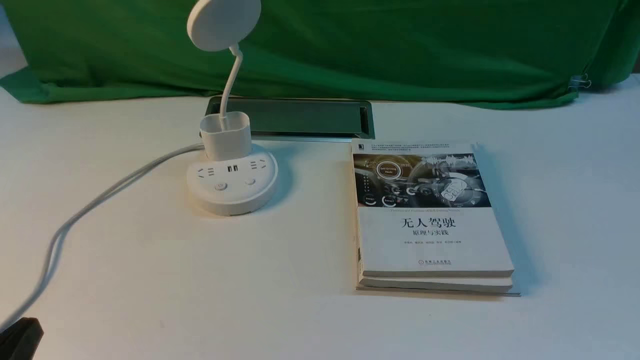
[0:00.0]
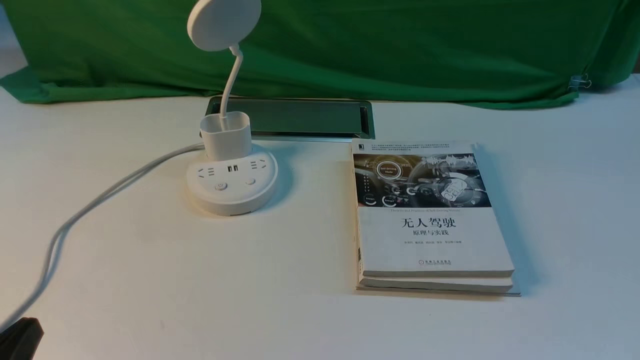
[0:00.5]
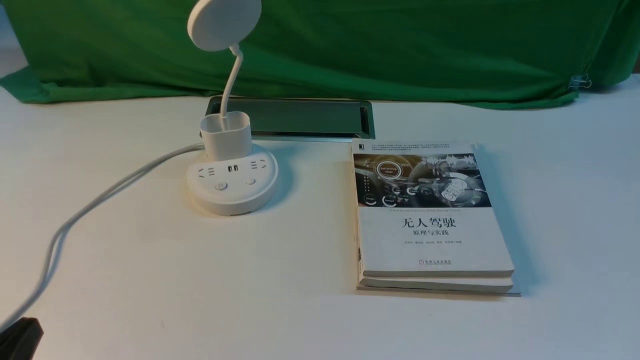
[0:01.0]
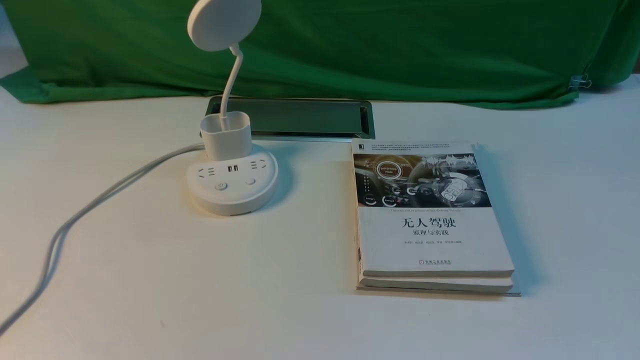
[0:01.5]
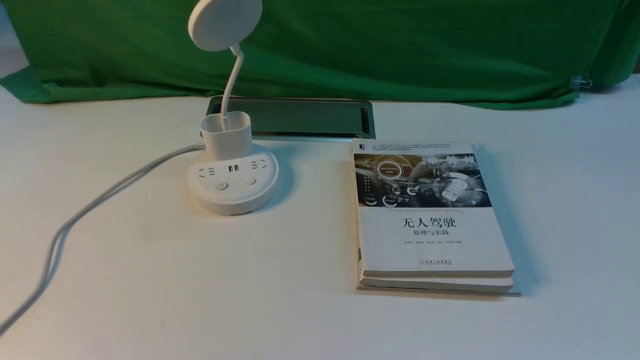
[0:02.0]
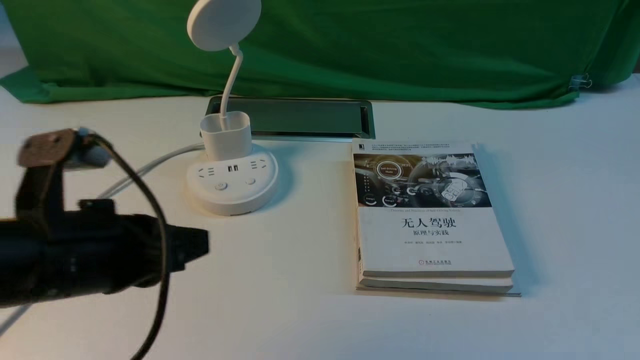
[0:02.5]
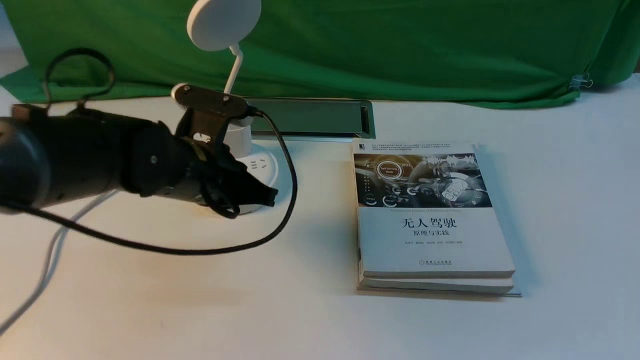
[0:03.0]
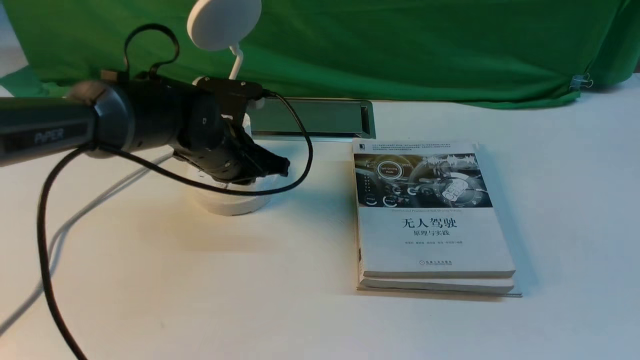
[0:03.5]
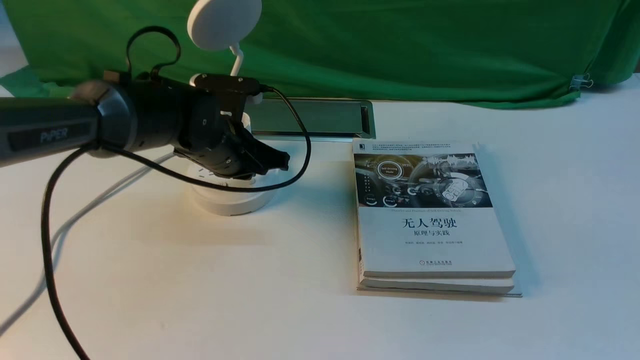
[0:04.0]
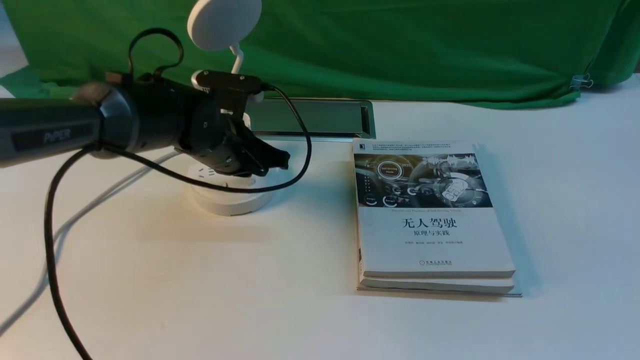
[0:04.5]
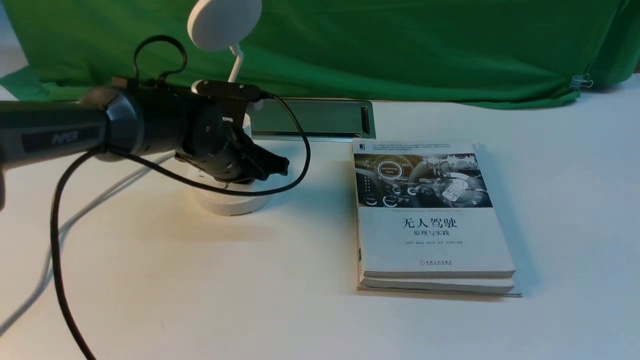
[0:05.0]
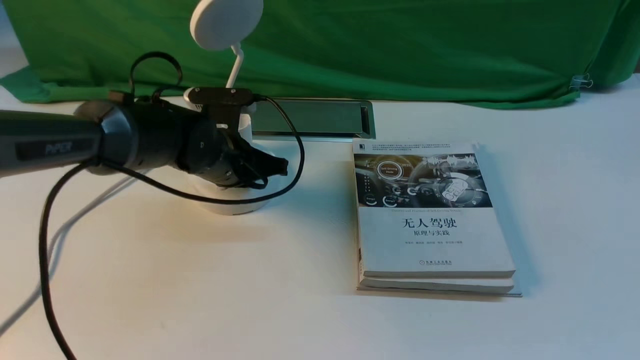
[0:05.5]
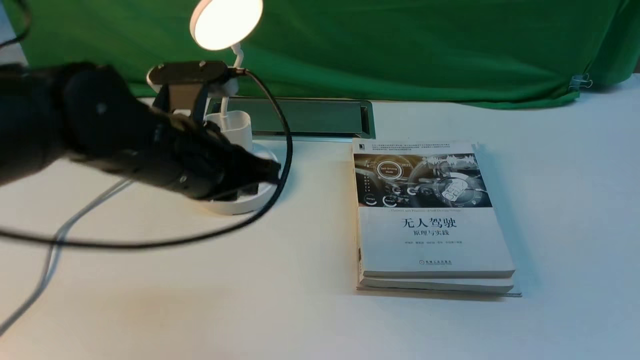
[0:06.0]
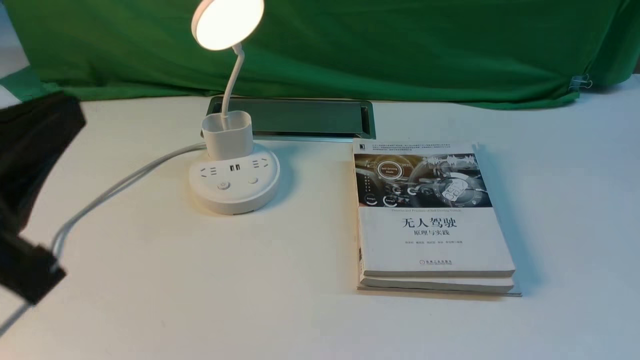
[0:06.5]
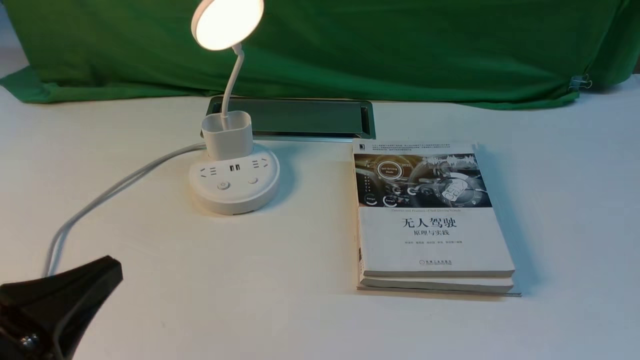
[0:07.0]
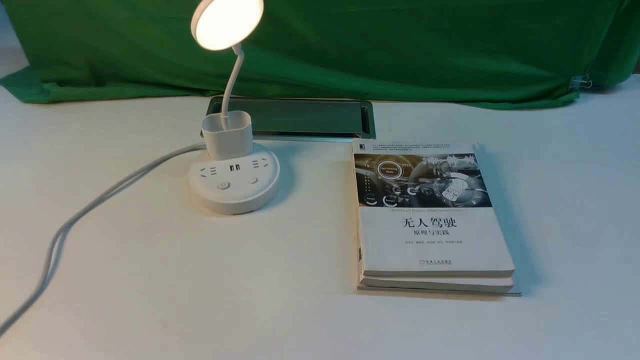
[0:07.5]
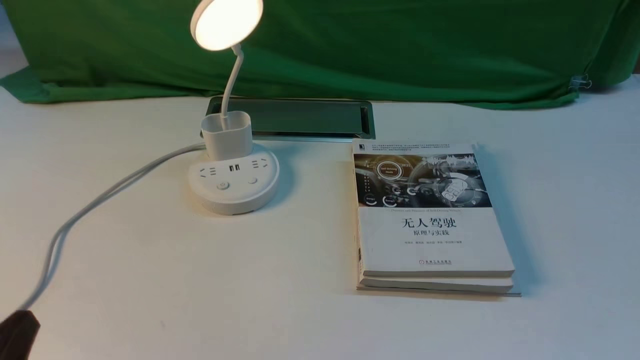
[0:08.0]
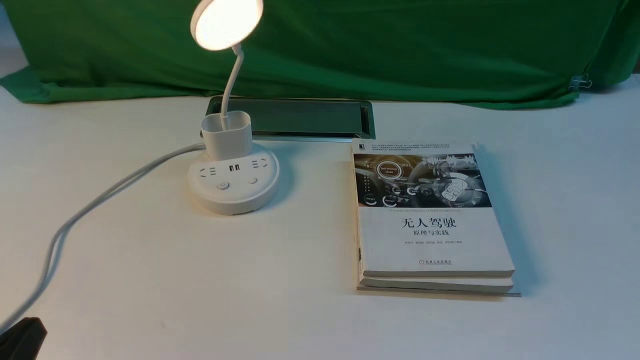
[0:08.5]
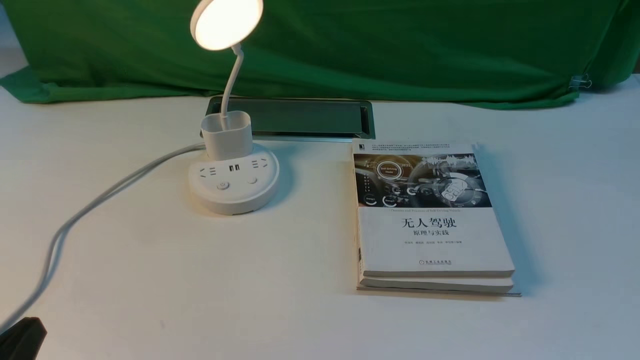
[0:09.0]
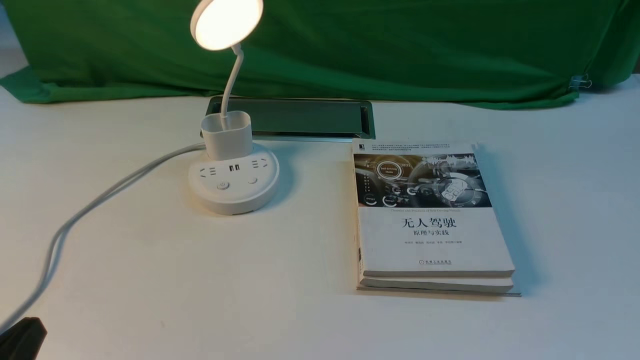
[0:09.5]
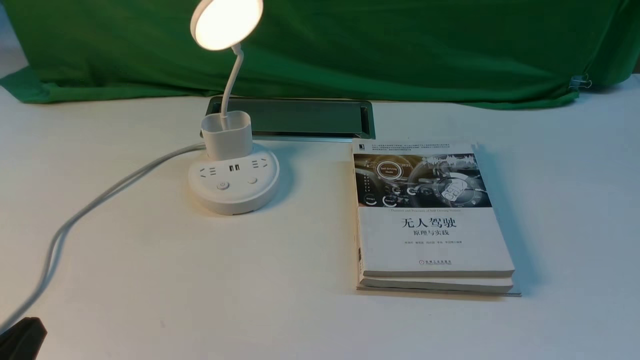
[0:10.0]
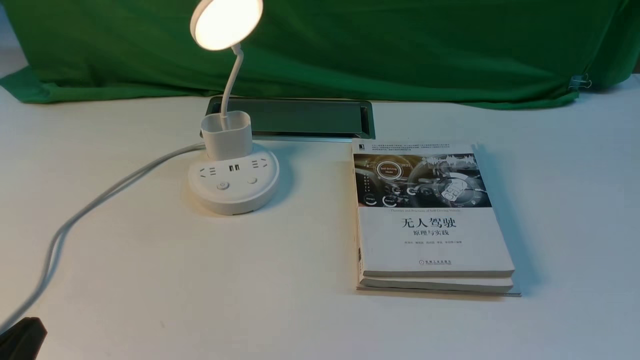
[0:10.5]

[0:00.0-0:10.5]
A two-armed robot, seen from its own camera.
Step, 0:00.0 to 0:06.0: use the left arm to press the button switch on the lamp holder.
0:00.0 to 0:02.0: The left gripper moves upward, approximately 15 cm.
0:02.0 to 0:04.0: The left gripper goes approximately 40 cm forward, downward and to the right.
0:04.0 to 0:06.5: The left gripper shifts roughly 35 cm backward and upward.
0:06.5 to 0:08.5: The left gripper is displaced downward by roughly 15 cm.
0:08.5 to 0:10.5: Neither gripper changes place.

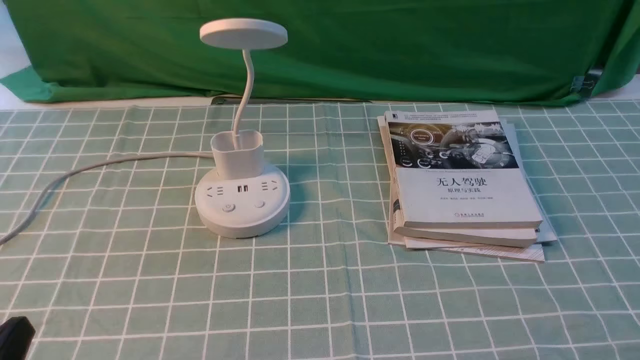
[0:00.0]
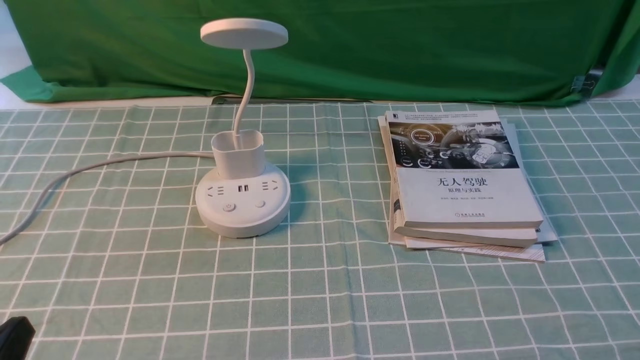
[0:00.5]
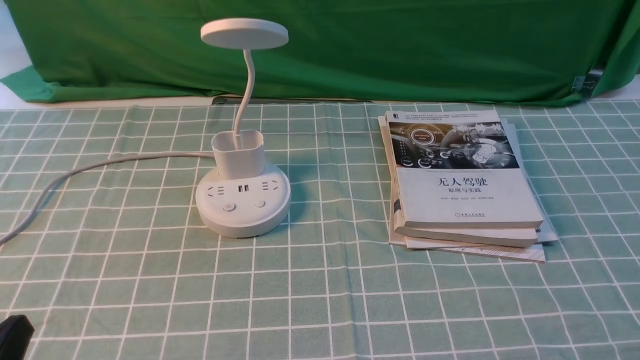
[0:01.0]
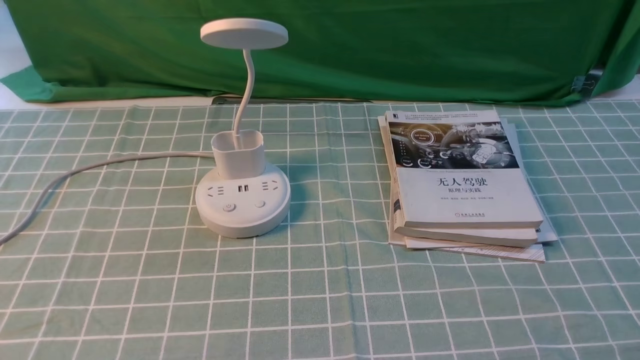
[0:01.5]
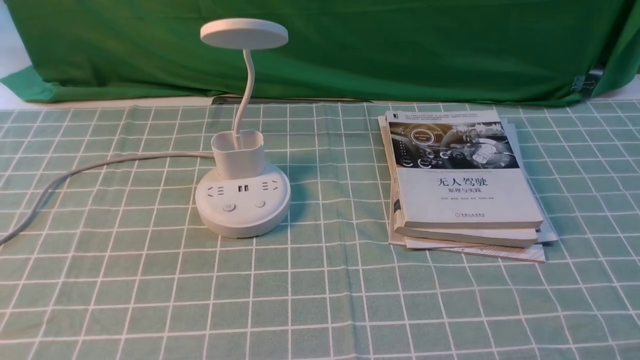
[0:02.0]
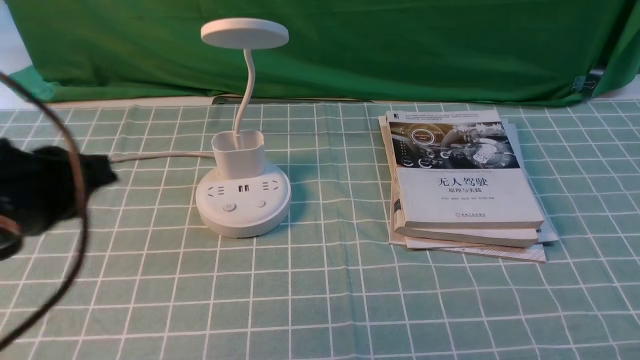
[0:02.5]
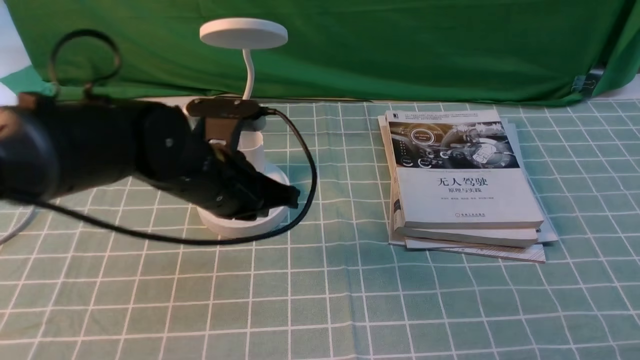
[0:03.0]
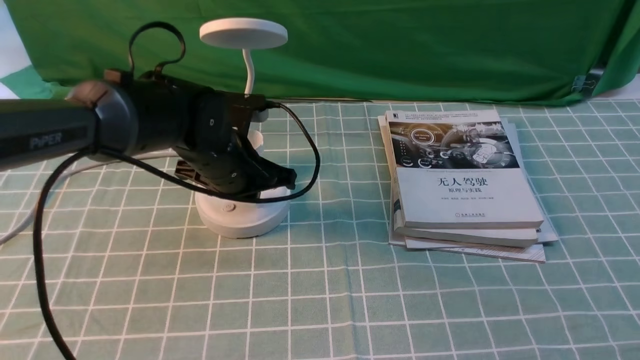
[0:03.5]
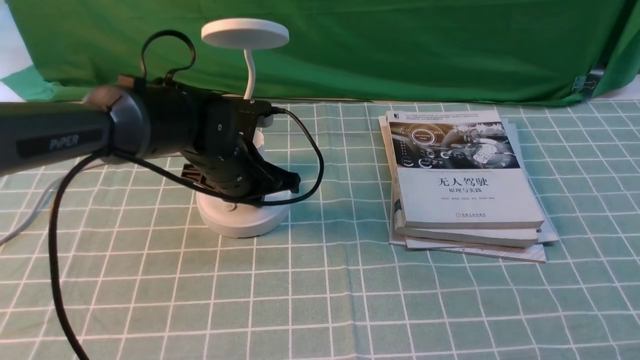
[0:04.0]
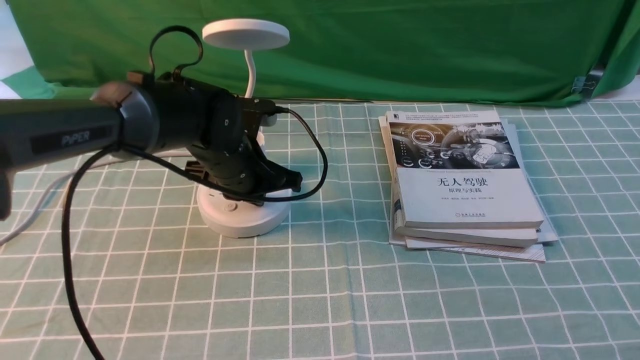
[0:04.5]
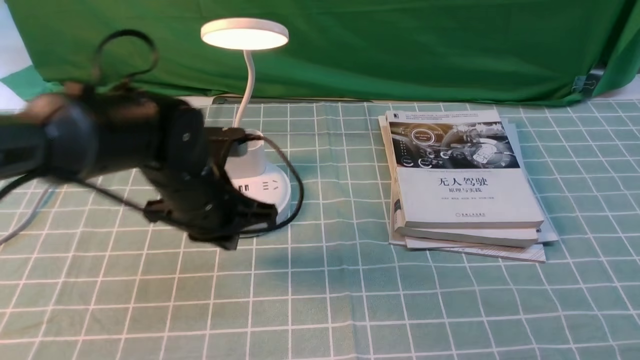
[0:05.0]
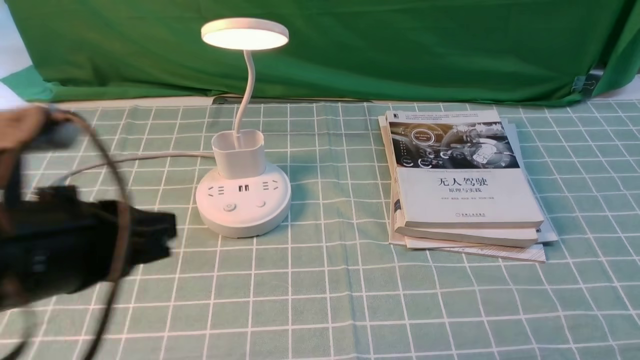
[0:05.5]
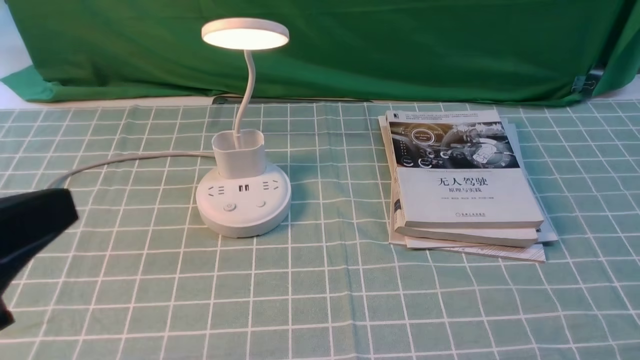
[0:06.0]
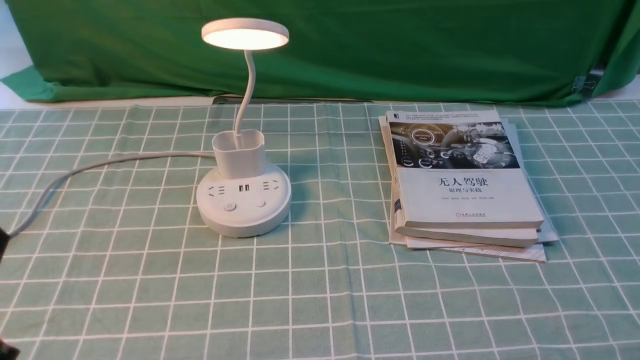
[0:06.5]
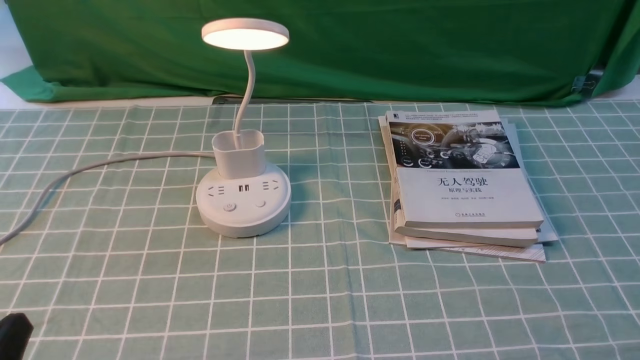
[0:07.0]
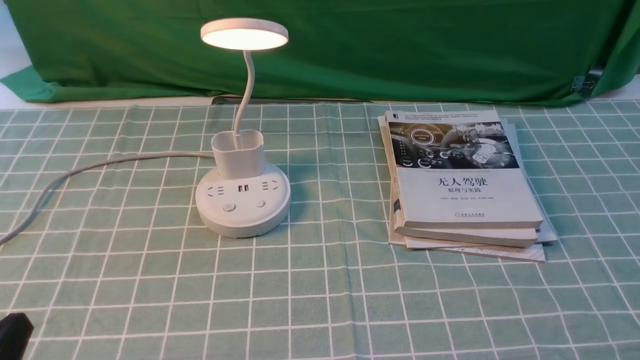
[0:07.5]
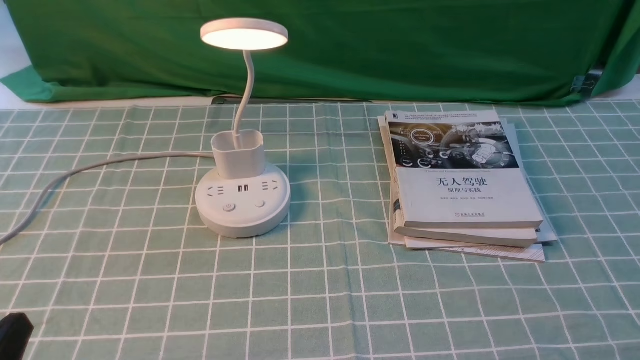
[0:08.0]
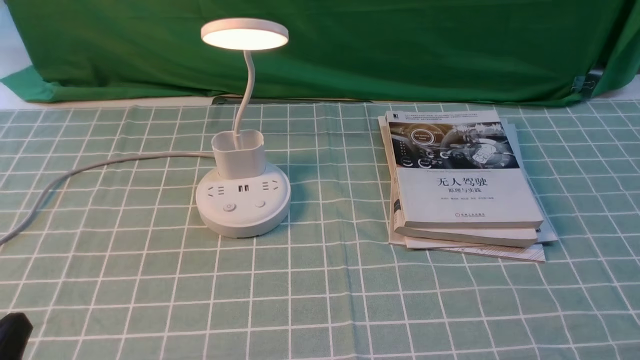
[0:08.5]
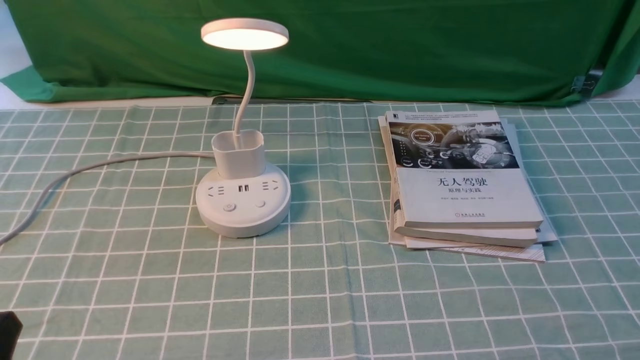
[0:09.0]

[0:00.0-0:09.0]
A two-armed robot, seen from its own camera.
Step, 0:00.0 to 0:05.0: use the left arm to press the button switch on the lamp holder.
0:02.0 to 0:04.5: The left gripper shifts roughly 40 cm forward, downward and to the right.
0:04.5 to 0:07.0: The left gripper goes roughly 35 cm backward and to the left.
